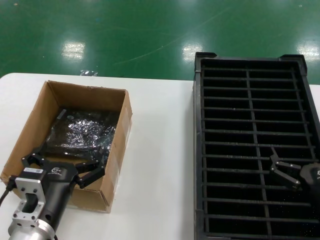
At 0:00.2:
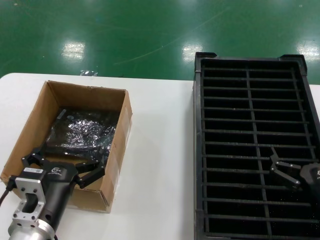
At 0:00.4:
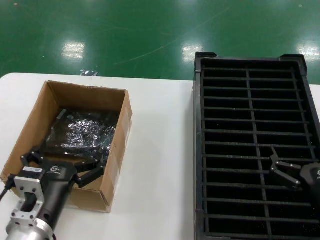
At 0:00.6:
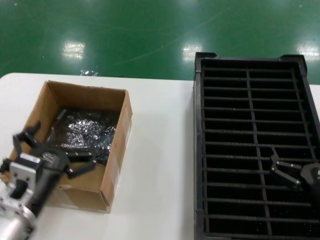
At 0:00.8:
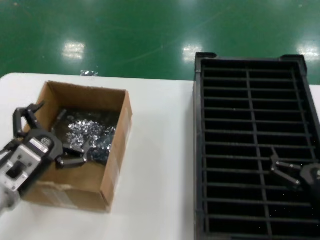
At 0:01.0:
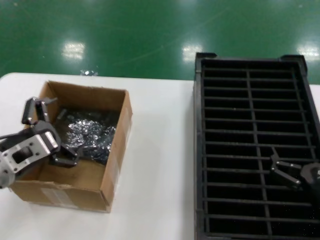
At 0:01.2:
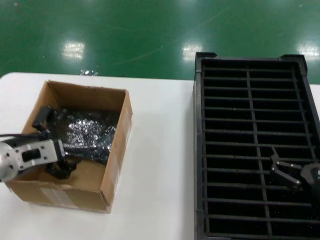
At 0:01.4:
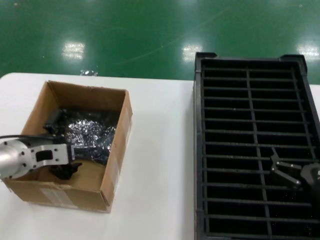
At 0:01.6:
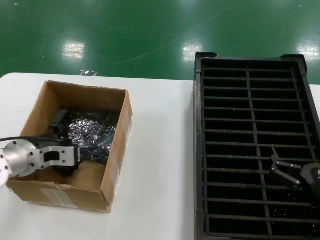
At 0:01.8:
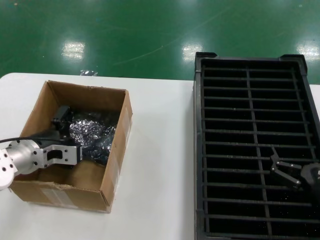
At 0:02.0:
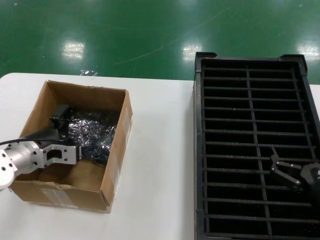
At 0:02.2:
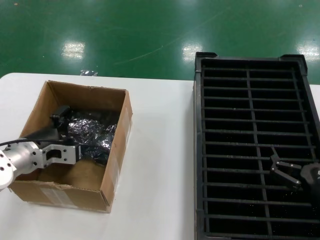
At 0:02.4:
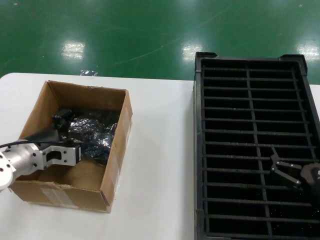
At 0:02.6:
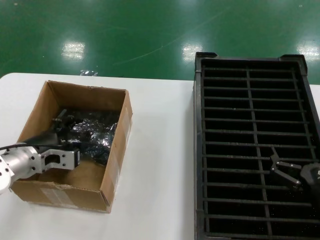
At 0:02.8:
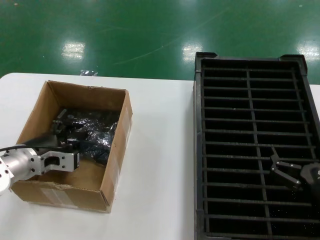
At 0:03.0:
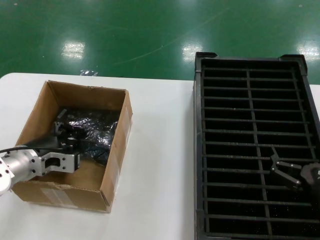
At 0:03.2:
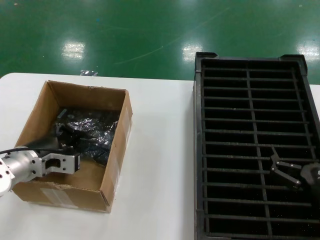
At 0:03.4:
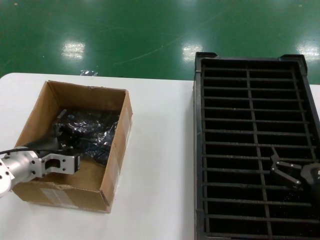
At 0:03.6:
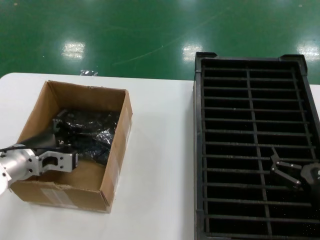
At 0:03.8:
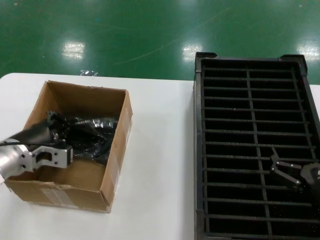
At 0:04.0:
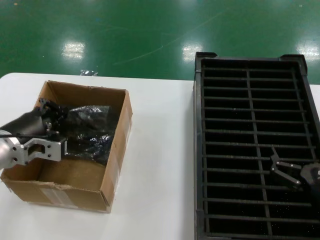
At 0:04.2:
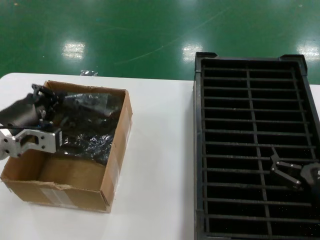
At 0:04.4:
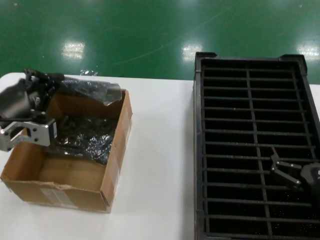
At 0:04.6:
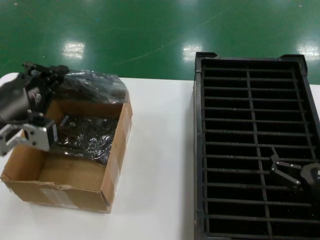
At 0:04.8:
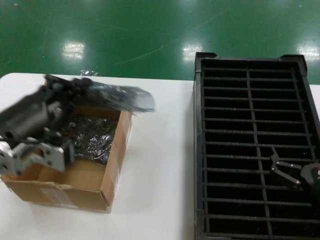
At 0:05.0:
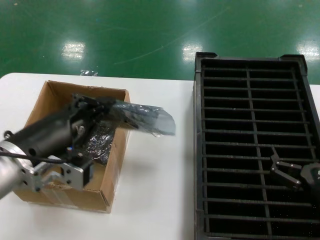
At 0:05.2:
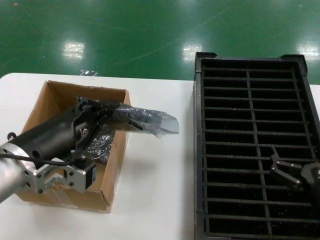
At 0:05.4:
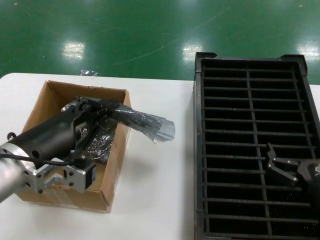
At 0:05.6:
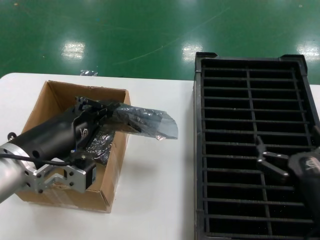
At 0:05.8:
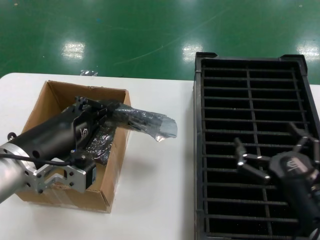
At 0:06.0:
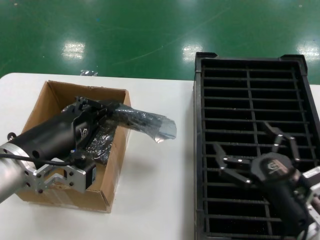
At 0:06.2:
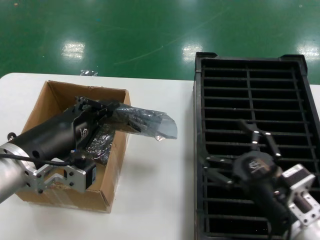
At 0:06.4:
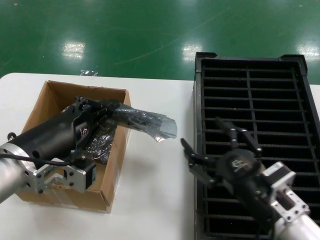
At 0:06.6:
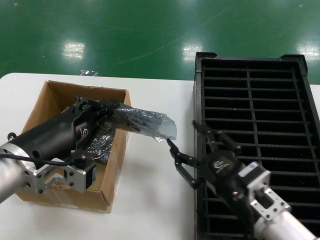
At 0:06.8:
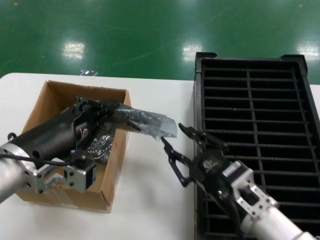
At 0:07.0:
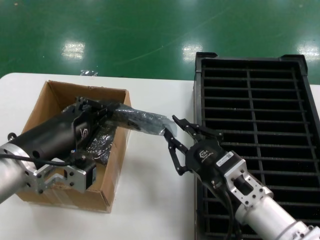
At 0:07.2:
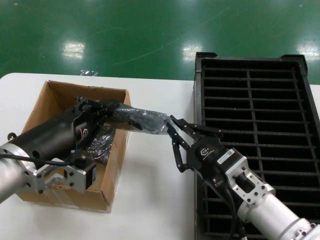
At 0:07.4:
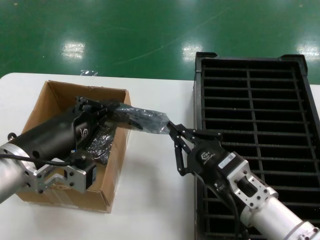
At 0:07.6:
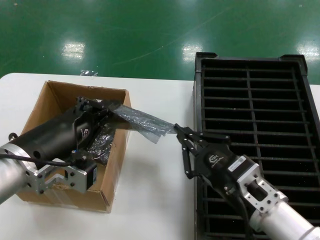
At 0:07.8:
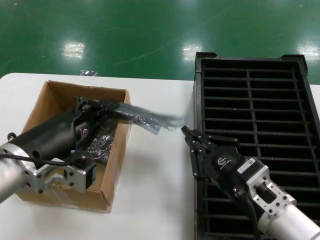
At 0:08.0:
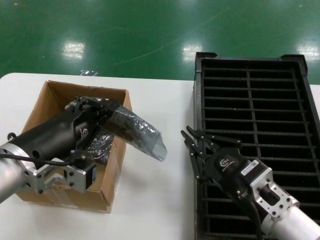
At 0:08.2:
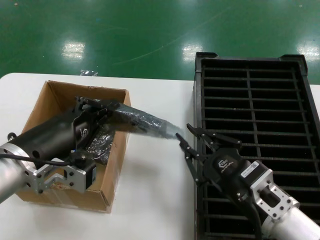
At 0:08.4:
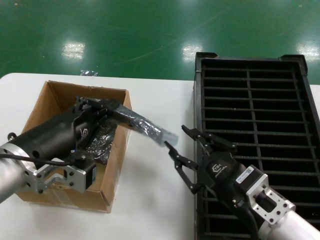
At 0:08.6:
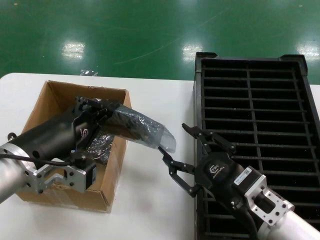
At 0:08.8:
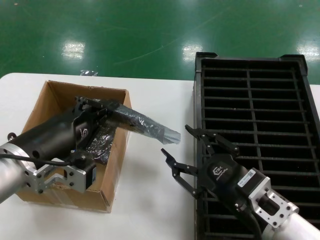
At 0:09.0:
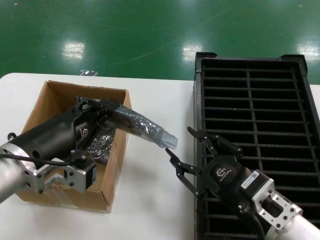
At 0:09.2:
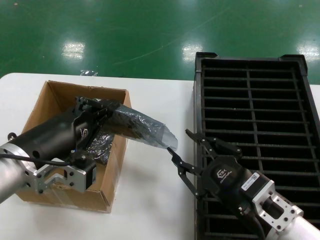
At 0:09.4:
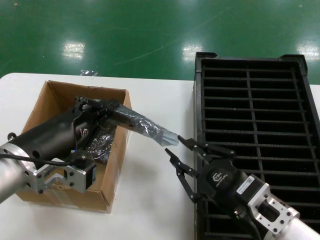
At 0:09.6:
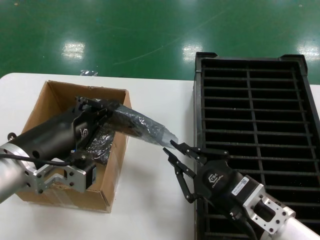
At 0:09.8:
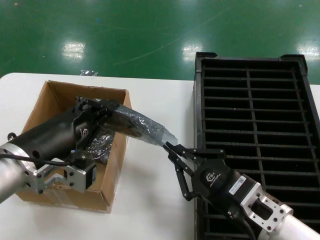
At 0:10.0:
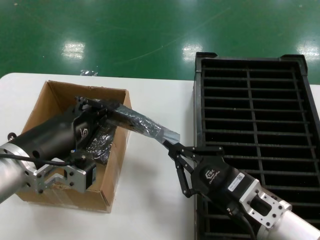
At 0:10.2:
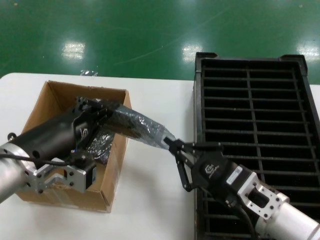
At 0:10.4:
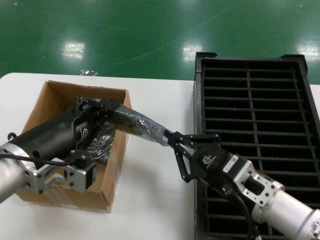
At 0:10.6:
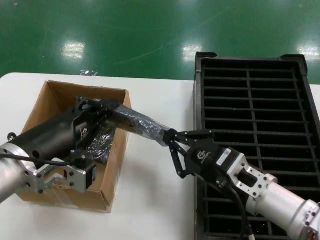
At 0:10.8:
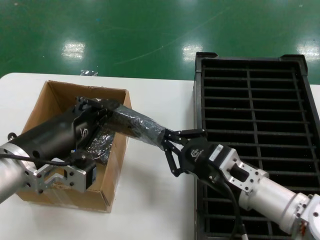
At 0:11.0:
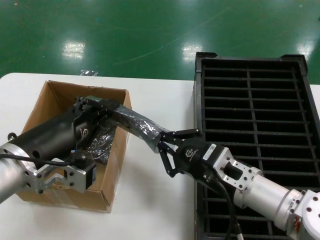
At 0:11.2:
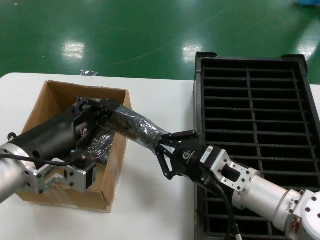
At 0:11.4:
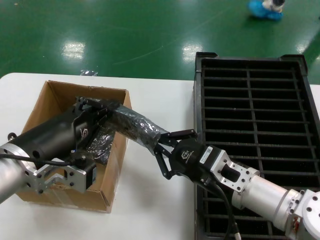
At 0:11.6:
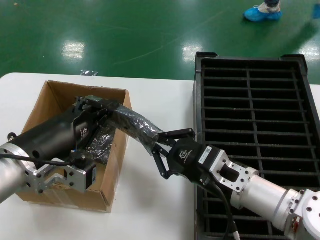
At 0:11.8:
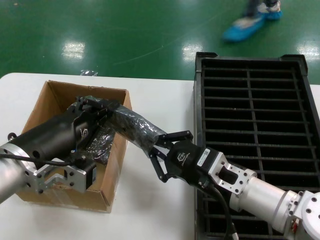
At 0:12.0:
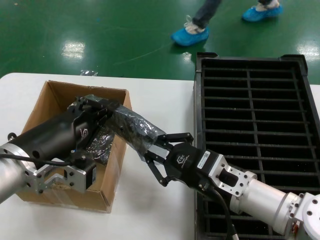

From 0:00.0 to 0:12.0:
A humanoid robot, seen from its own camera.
Task of the whole recording: take out graphics card from box remove packaging put into black container.
Step, from 0:00.0 to 0:03.0: Grasp the bag.
Step, from 0:03.2 to 0:05.4: Lift the bag.
From 0:00.0 to 0:01.6: The left hand shifts roughly 20 cm forward, to the left and upward.
From 0:01.6 to 0:03.0: The hands move only a little.
From 0:03.0 to 0:04.4: The left hand travels upward and backward by about 15 cm.
From 0:04.4 to 0:06.0: The left hand shifts approximately 10 cm to the right and backward.
From 0:06.0 to 0:07.6: The right hand is displaced to the left by approximately 5 cm.
From 0:07.6 to 0:12.0: The hands stay close to where they were, moving slightly.

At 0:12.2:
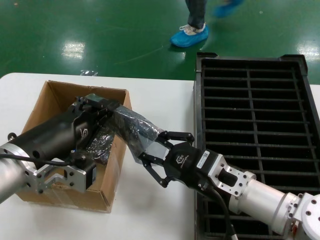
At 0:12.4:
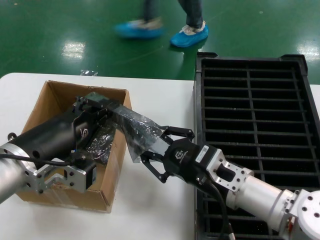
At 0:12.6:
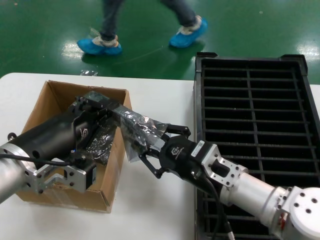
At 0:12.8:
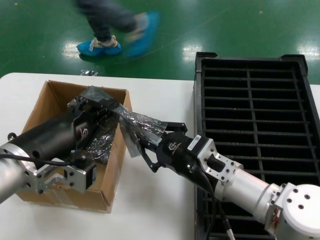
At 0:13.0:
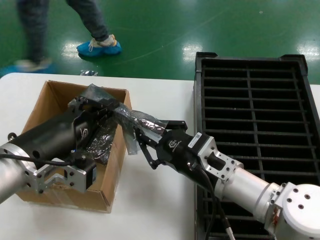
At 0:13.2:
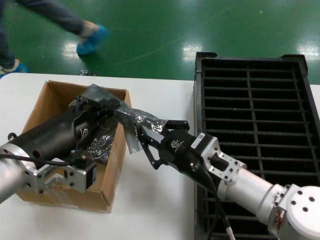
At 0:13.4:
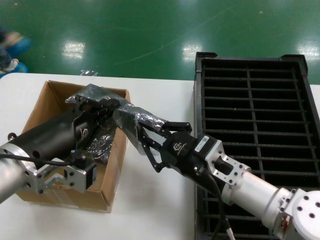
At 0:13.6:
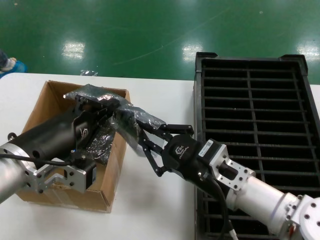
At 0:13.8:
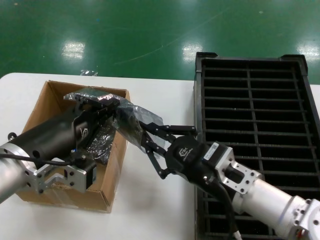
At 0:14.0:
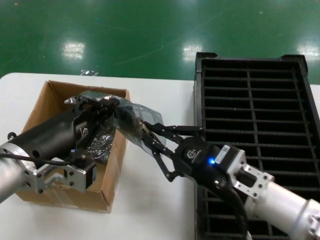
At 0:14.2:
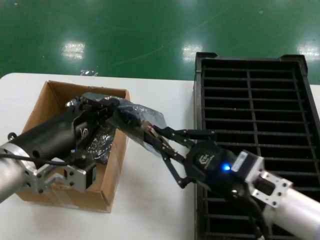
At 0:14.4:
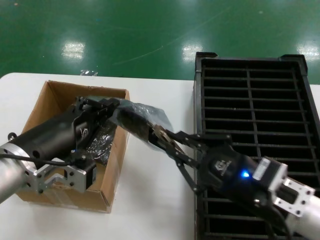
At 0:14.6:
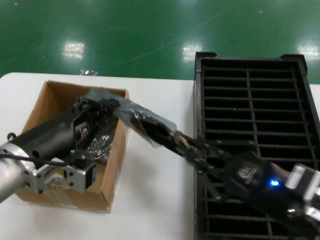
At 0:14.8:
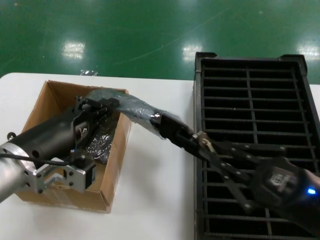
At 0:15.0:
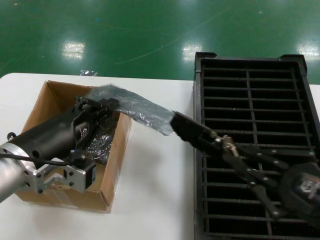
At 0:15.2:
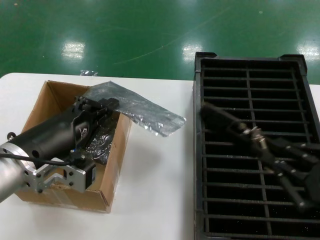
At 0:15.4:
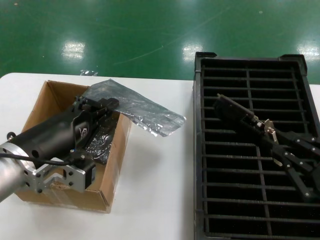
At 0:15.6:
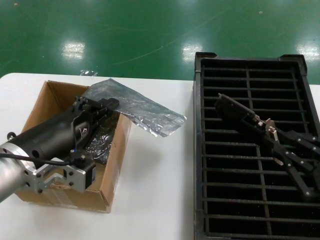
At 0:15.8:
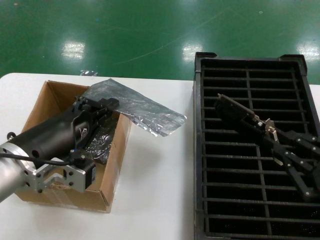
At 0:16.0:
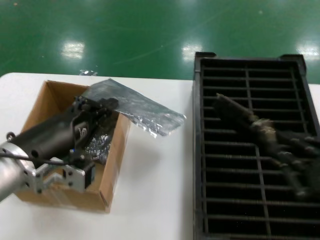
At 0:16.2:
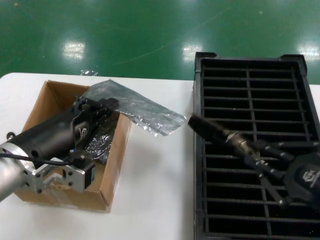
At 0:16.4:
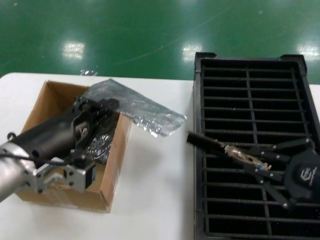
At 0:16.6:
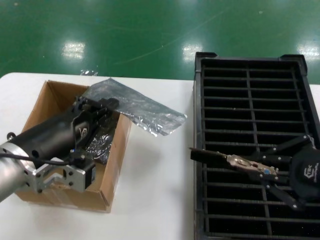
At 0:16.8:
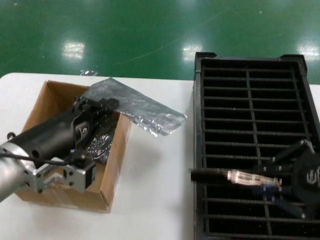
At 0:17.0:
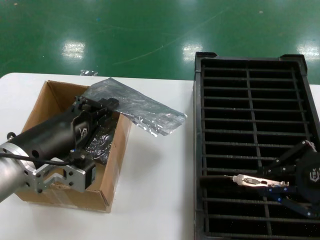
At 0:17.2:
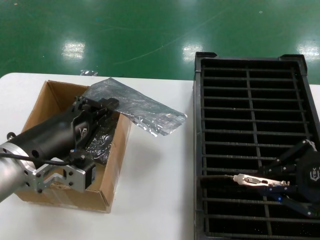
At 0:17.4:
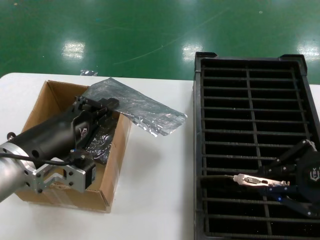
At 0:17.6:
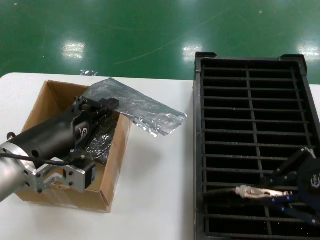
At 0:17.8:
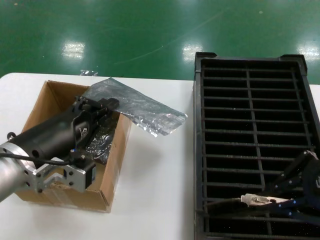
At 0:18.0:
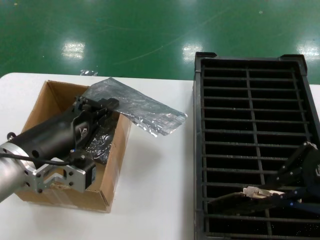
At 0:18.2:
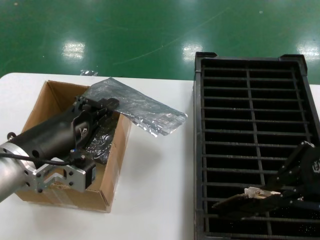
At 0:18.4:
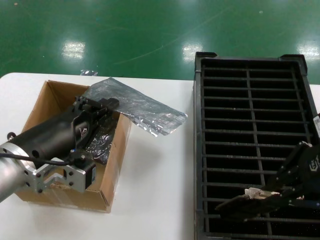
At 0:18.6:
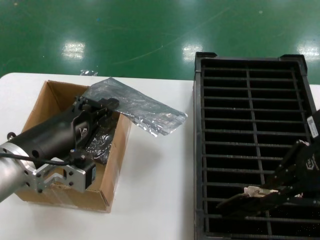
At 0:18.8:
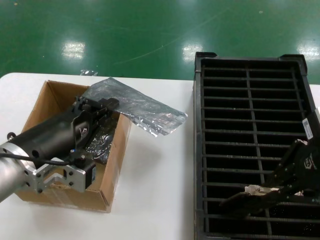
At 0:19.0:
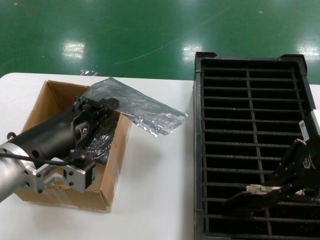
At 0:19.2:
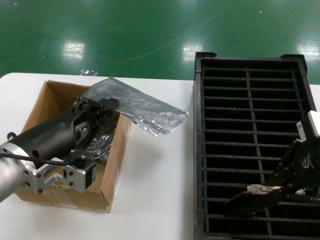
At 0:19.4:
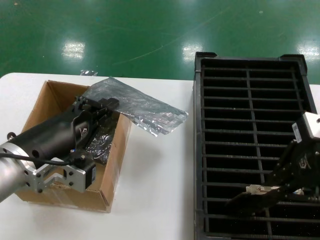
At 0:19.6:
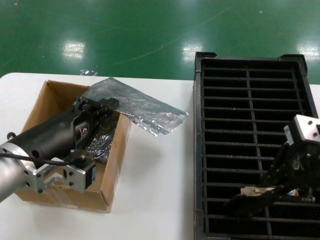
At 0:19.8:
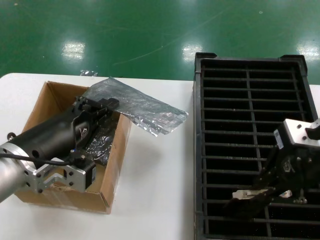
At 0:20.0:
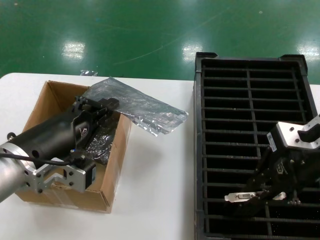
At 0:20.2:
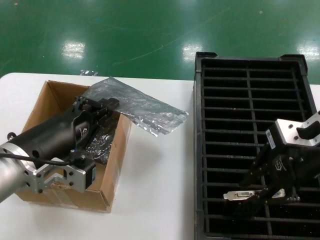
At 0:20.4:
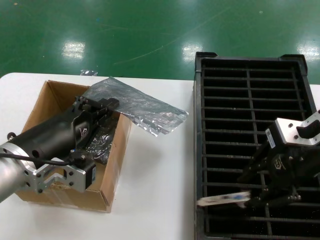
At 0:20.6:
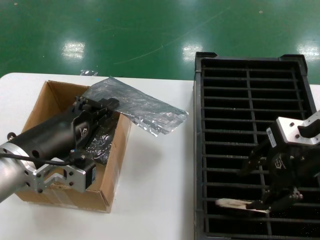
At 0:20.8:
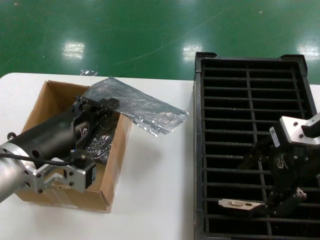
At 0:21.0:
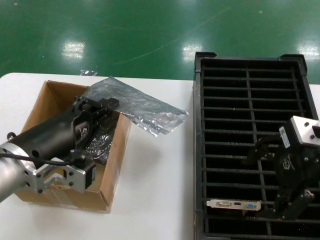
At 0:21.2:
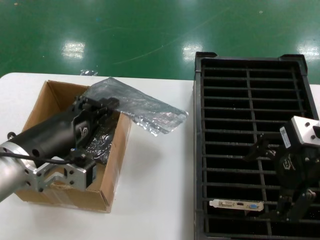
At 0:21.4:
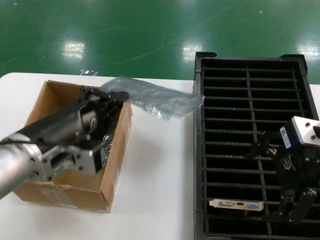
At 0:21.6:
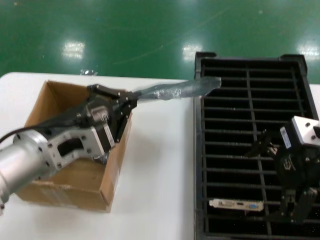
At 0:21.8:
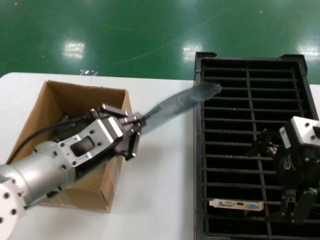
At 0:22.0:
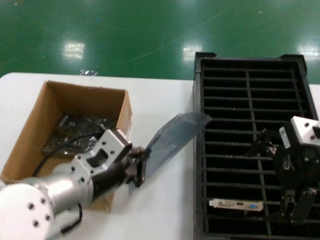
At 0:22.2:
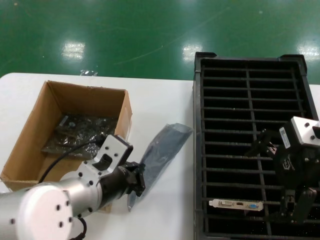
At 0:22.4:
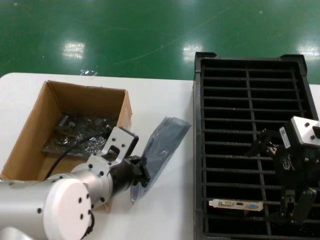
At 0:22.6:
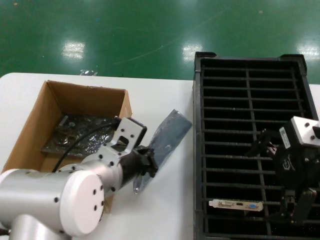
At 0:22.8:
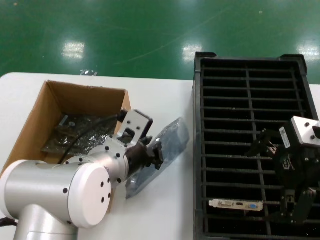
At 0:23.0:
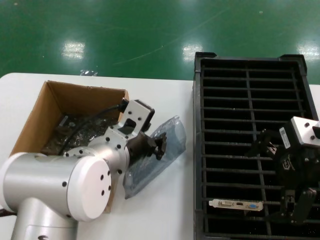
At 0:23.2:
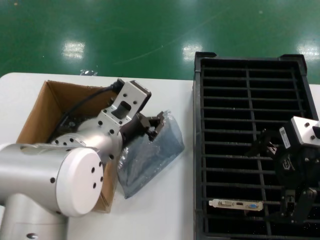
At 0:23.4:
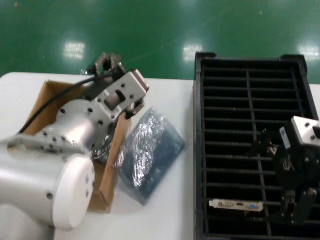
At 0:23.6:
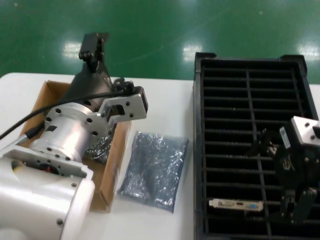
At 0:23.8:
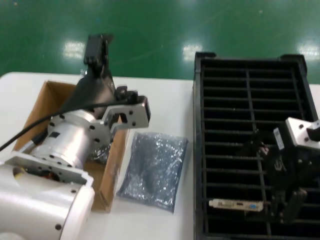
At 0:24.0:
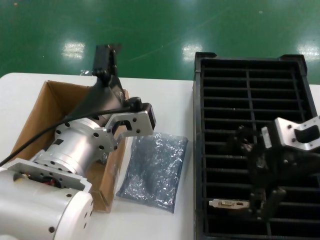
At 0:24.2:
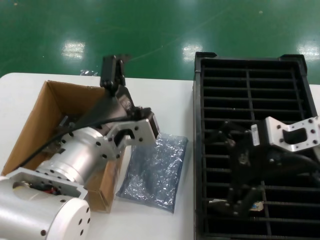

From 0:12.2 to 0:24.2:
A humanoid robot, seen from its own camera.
Task of the whole recording: take out graphics card from box remove packaging put into black container.
Step, from 0:12.2 to 0:15.0: Take out the hard disk of the bag.
Step, from 0:15.2 to 0:20.6: Place the hard disk in the hard disk enclosure.
Step, from 0:20.8 to 0:23.2: Place the down the bag.
From 0:12.2 to 0:13.8: The hands move only a little.
From 0:13.8 to 0:15.2: The right hand is displaced to the right and backward by about 20 cm.
From 0:15.2 to 0:16.6: The right hand travels upward by some 10 cm.
From 0:16.6 to 0:18.2: The right hand is displaced upward and forward by about 10 cm.
From 0:18.2 to 0:19.8: The right hand heads forward, covering about 5 cm.
From 0:19.8 to 0:21.2: The hands make only small movements.
From 0:21.2 to 0:22.6: The left hand heads to the right, covering about 10 cm.
